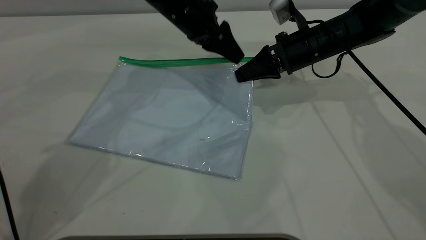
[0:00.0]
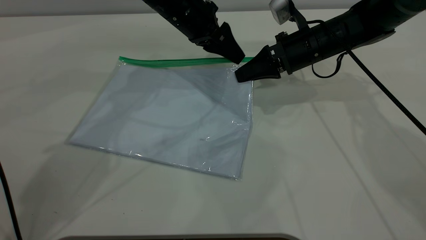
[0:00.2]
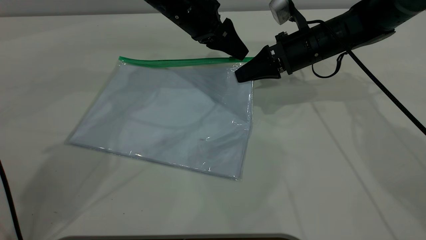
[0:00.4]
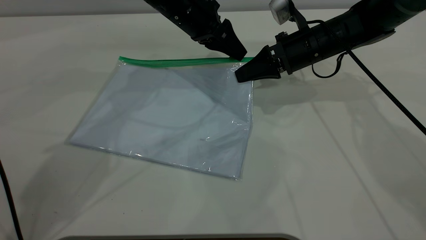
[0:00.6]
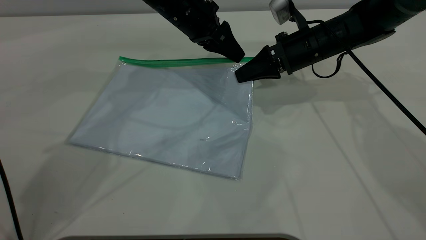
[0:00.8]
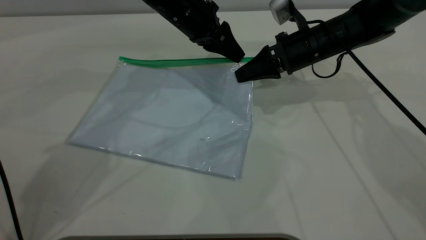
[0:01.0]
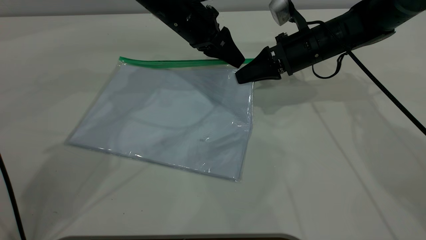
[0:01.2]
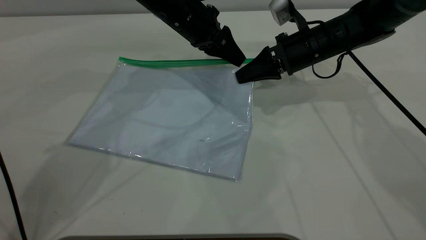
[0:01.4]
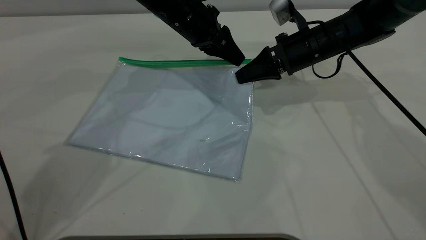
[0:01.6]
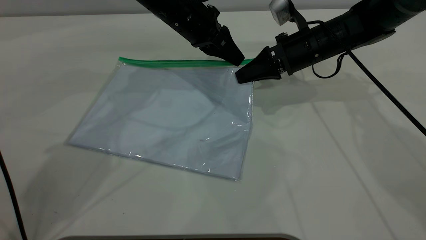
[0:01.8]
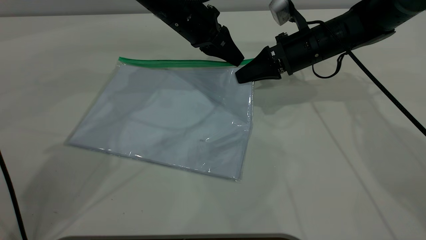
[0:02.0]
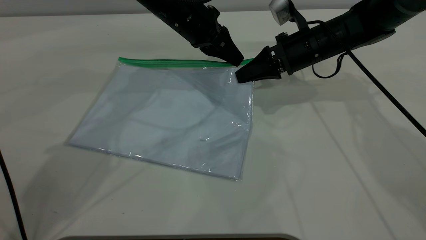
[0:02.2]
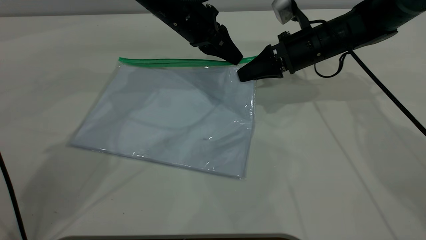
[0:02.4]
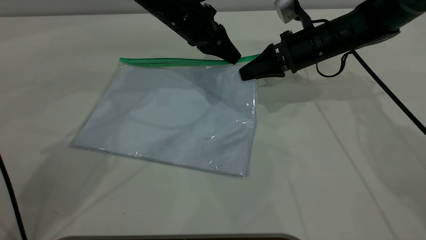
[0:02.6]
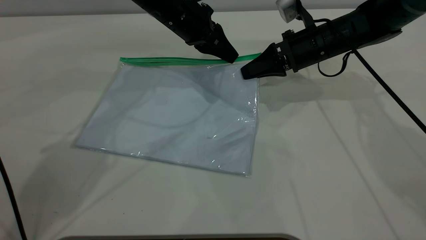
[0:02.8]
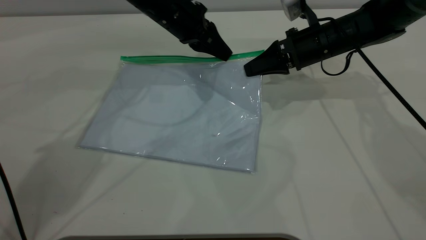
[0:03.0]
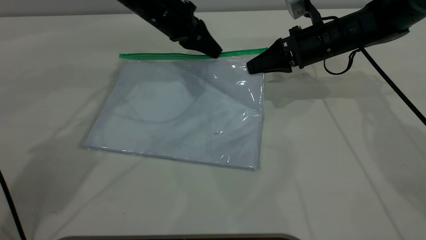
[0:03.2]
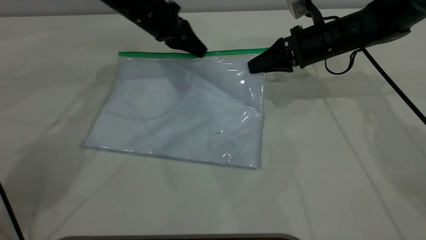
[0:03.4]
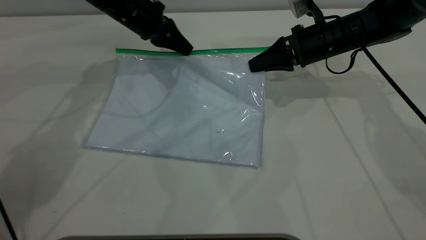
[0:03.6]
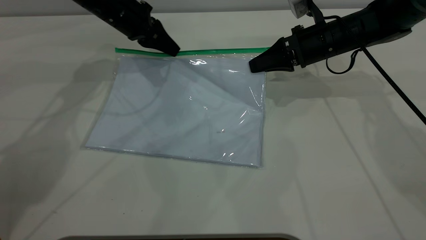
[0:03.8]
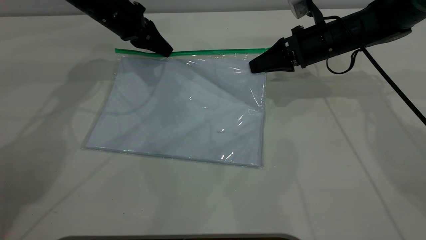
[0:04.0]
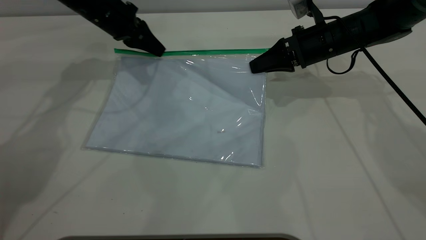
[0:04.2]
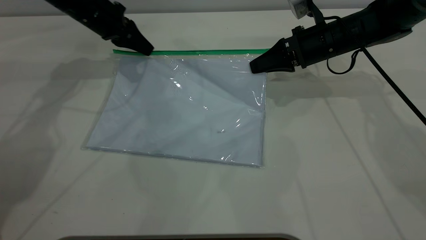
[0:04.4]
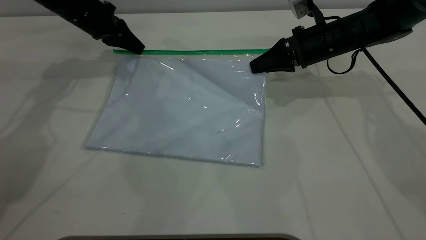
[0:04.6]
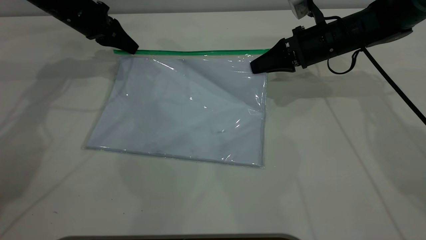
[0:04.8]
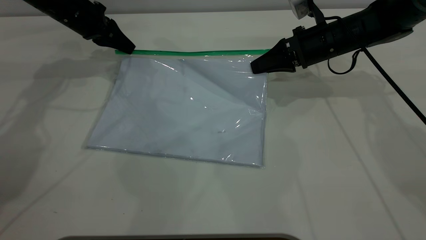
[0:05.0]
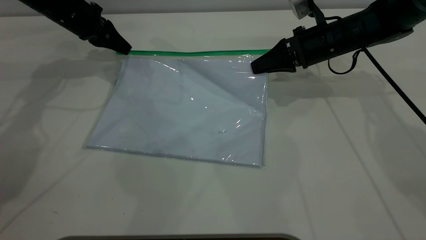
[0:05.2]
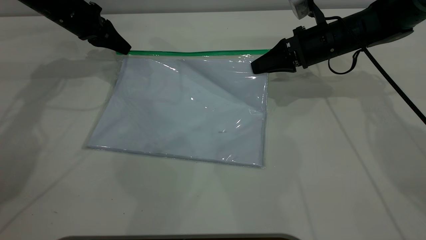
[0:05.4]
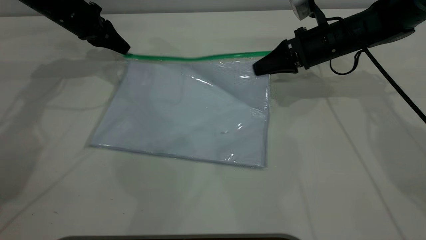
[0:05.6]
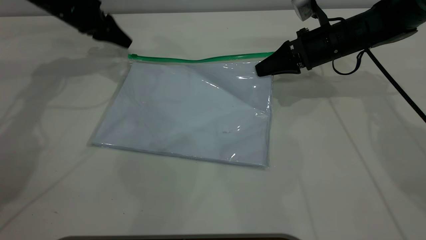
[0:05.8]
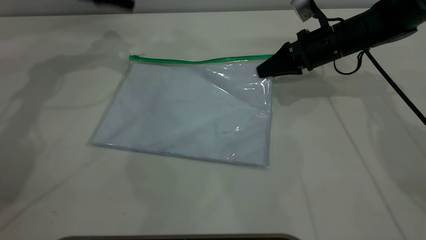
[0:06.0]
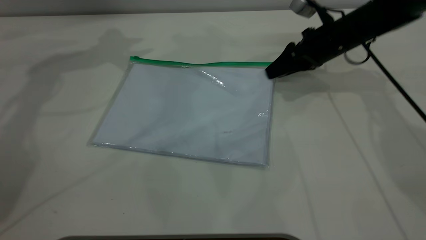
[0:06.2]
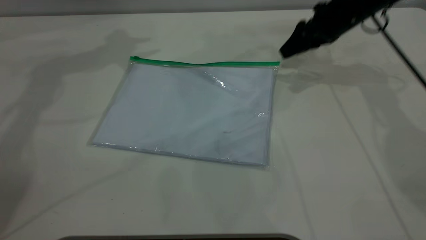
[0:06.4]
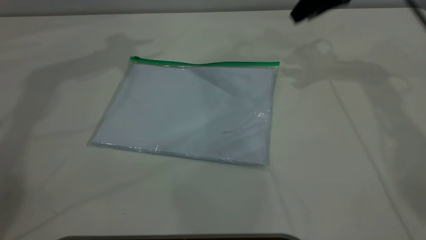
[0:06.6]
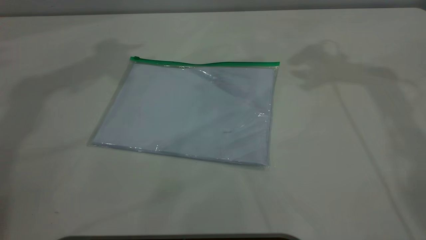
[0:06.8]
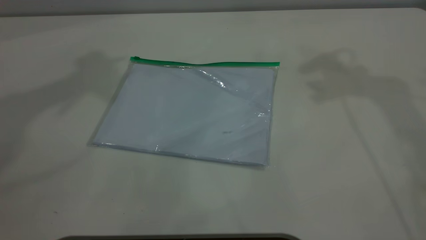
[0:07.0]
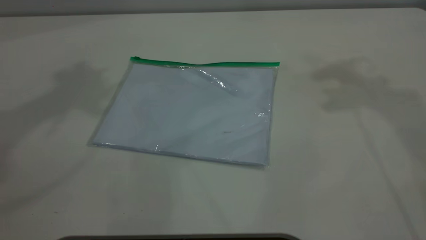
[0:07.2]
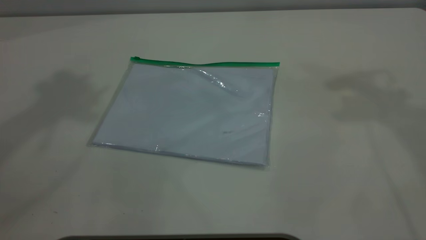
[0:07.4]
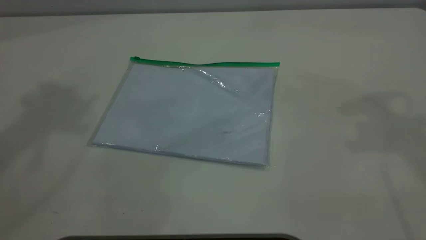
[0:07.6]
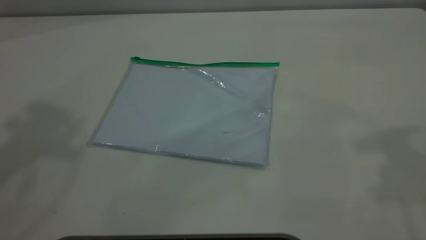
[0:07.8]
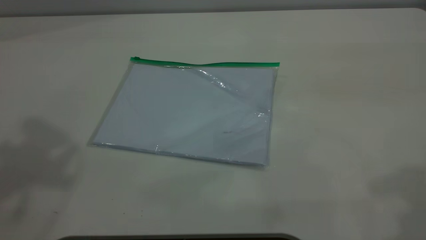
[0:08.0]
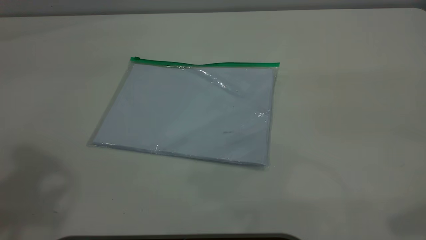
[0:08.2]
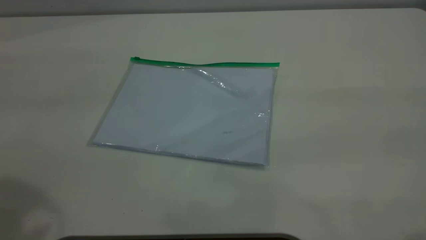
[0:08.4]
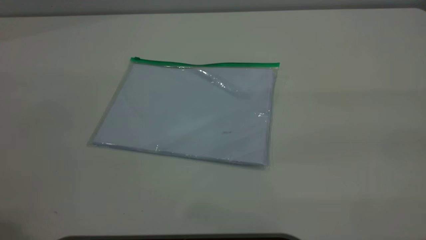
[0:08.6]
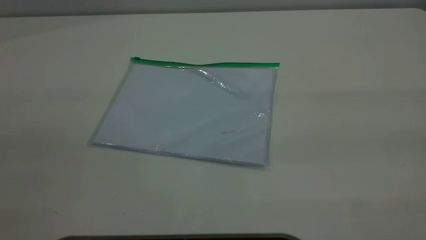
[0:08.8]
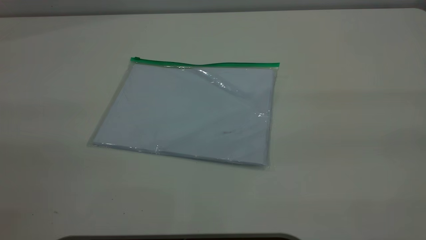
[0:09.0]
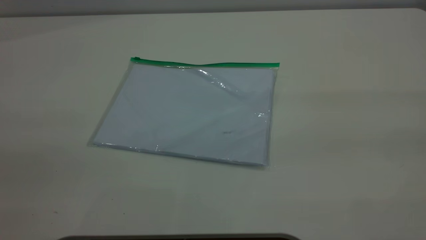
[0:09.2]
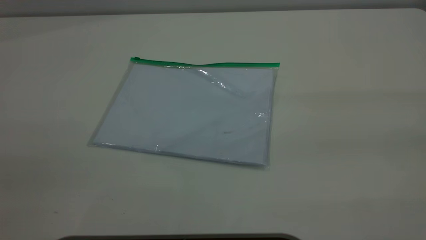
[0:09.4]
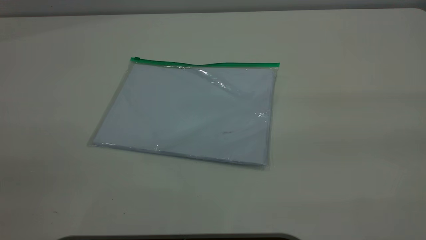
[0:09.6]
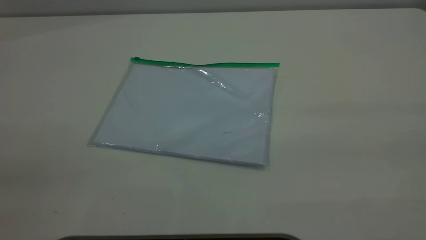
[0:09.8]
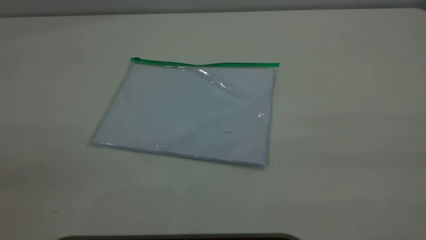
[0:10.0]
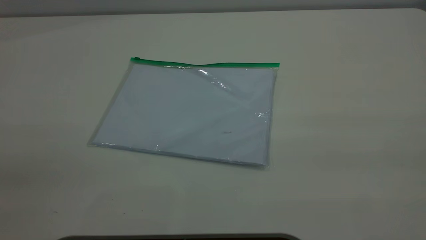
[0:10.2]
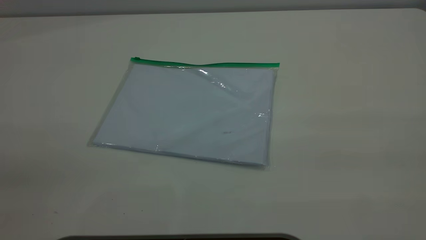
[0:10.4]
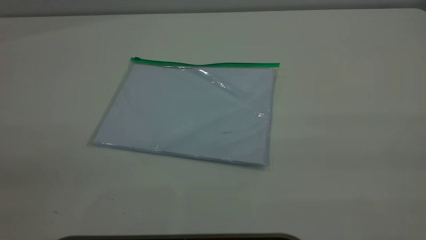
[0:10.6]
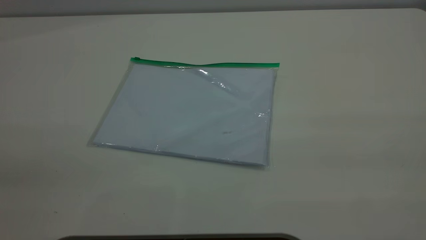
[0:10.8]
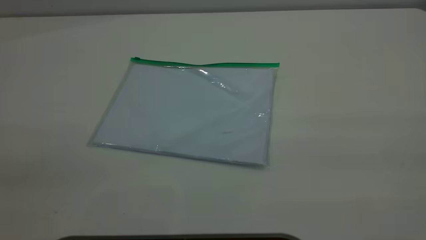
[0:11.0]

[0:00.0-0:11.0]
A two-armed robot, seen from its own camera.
Step, 0:00.0 to 0:05.8: Pulling up the zipper on the transparent plastic bag with the left gripper to close it.
Step, 0:06.0 to 0:06.4: Place the transparent plastic bag.
0:00.0 to 0:01.6: The left gripper closes up.
0:01.6 to 0:03.2: The left gripper changes place by roughly 5 cm.
0:03.2 to 0:04.8: The left gripper shifts roughly 15 cm to the left.
0:04.8 to 0:06.2: The left gripper shifts approximately 15 cm upward, and opens up, while the right gripper opens up.
0:06.2 to 0:07.8: Both grippers move upward and backward, some 40 cm.
